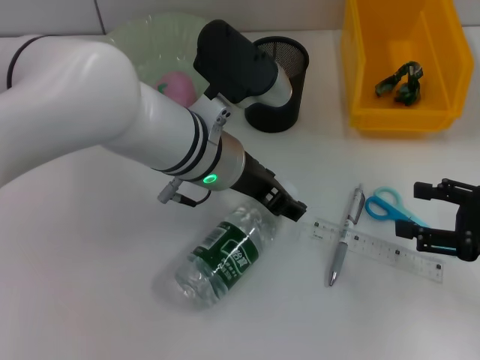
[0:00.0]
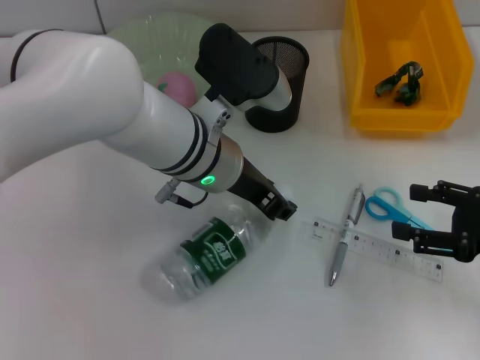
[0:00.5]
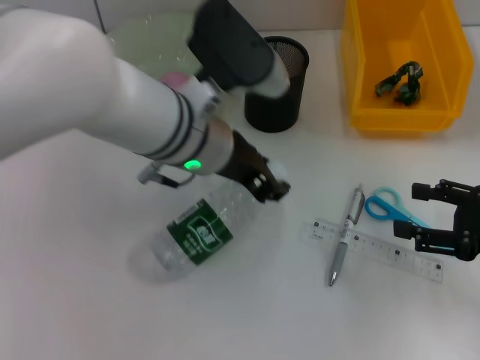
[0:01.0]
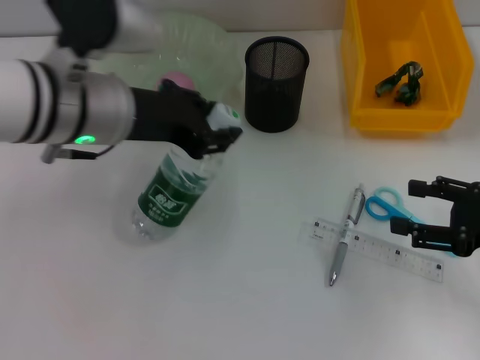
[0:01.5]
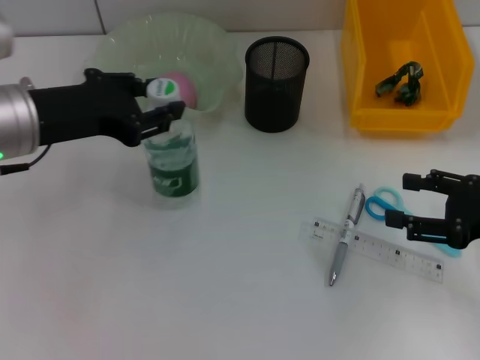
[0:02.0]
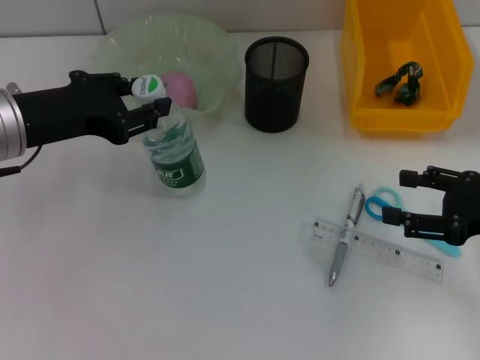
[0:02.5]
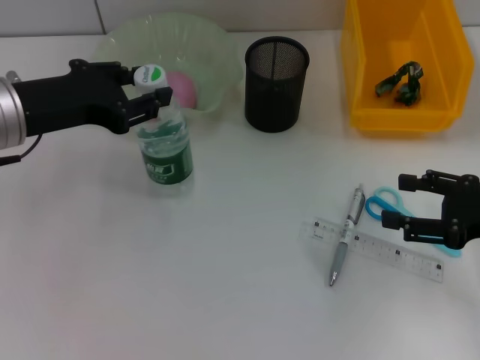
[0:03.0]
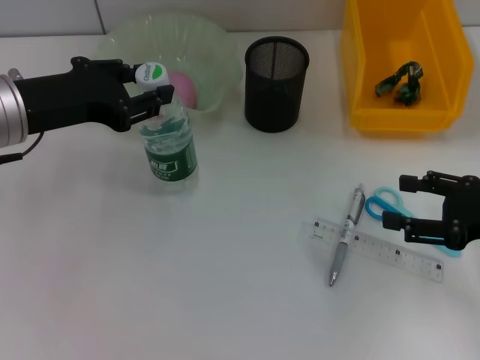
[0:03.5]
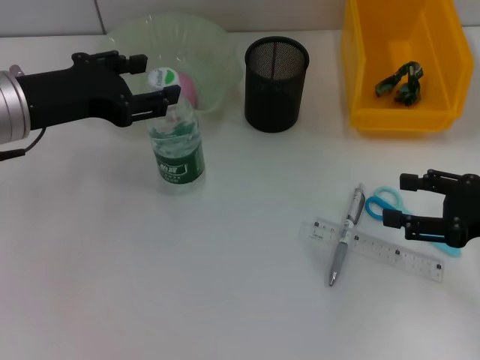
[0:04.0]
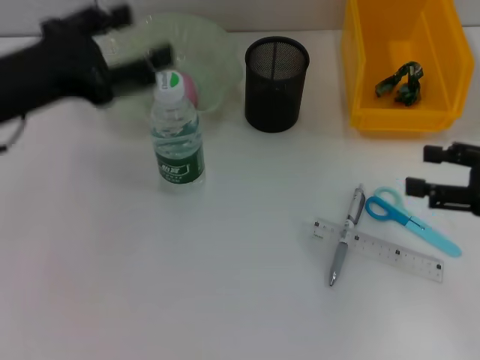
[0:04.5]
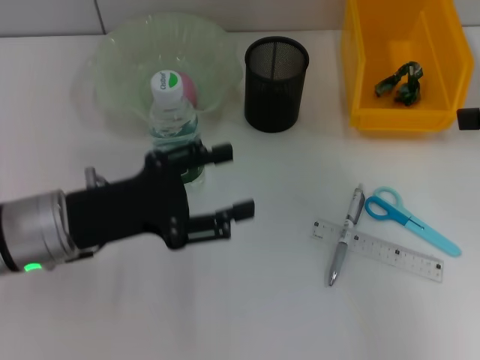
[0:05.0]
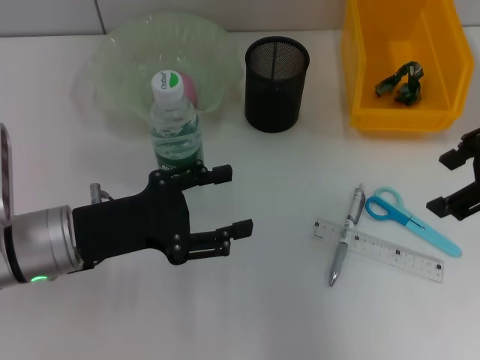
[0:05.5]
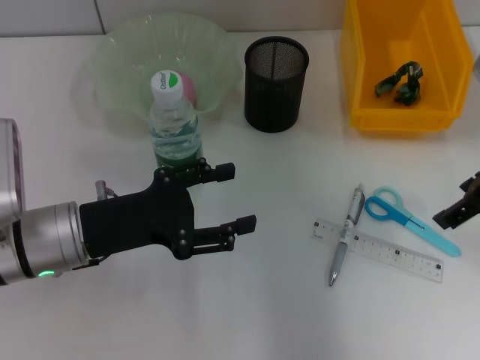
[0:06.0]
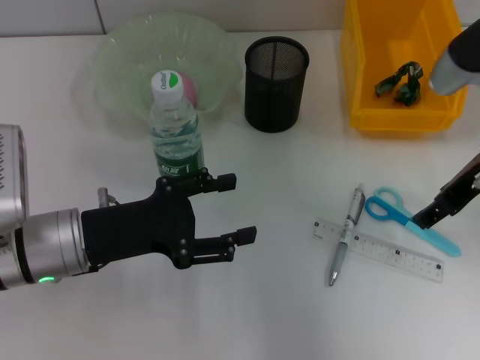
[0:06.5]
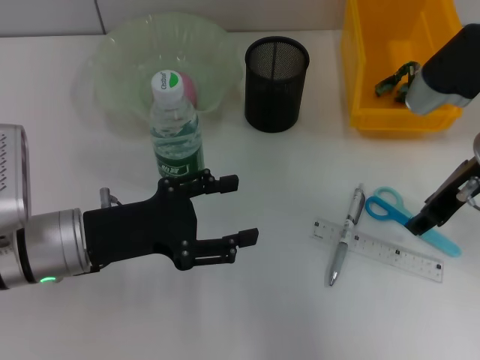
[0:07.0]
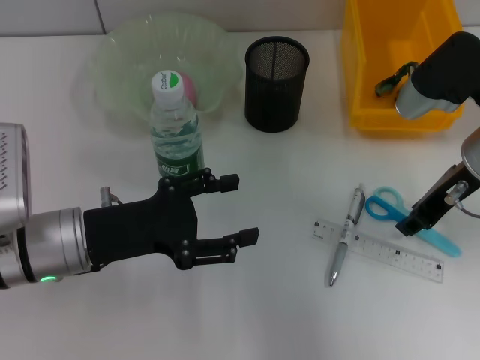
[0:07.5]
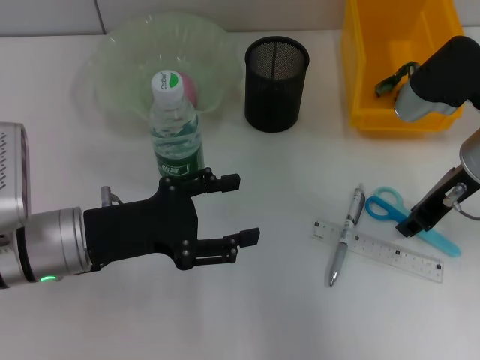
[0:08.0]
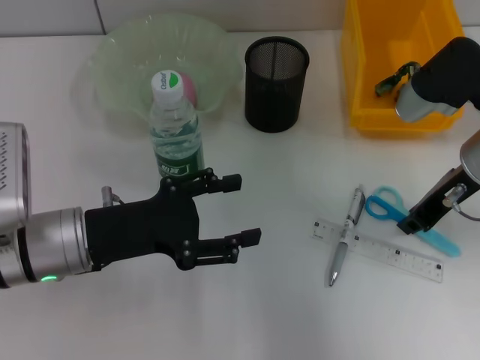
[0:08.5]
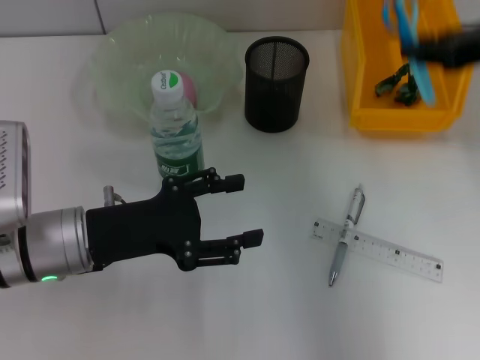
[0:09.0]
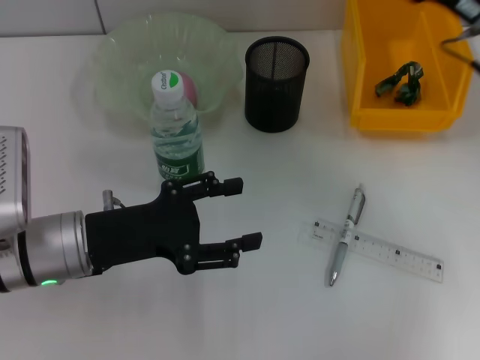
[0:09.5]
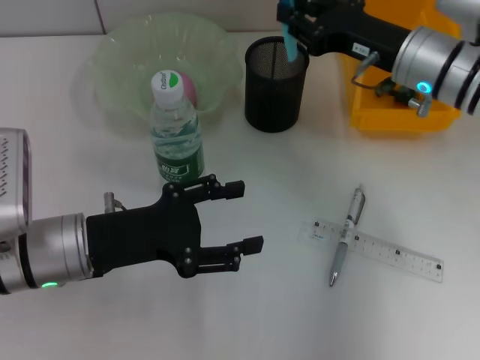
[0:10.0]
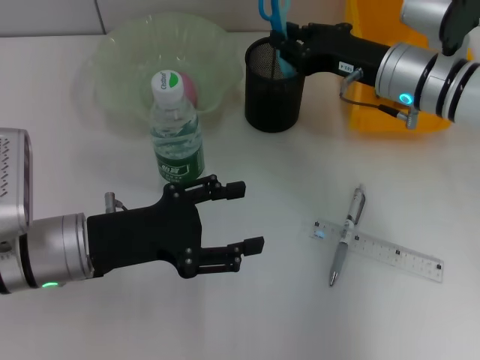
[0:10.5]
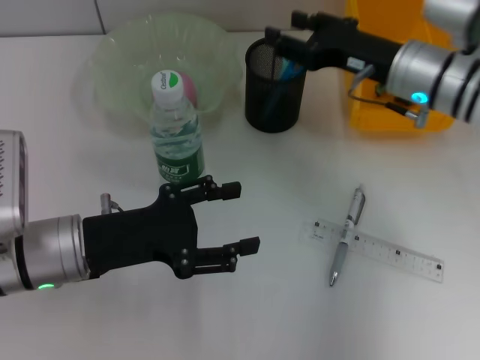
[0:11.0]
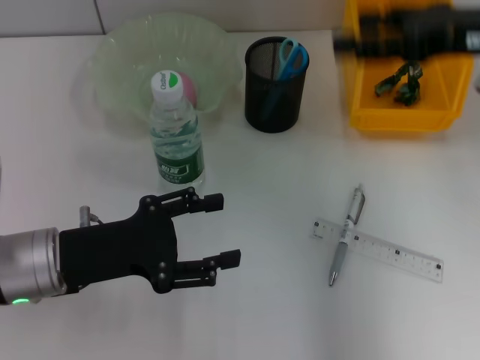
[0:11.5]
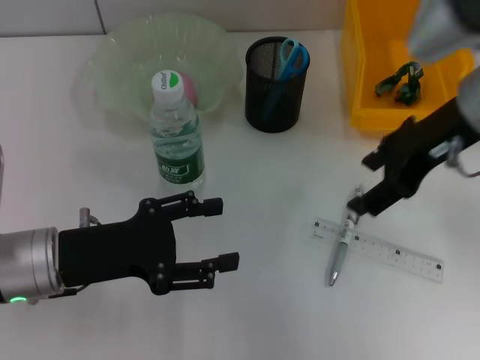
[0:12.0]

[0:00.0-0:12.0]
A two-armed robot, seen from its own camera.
Step, 0:00.5 to 0:04.0: Place the water bottle on the table with the left hand.
Step, 0:04.5 to 0:08.0: Grab the blue scissors with the right hand.
Step, 0:08.5 to 0:10.5: Place the blue scissors into the pen holder with the right hand.
0:00.0 to 0:02.0: The left gripper shifts some 15 cm to the left.
0:02.0 to 0:04.0: There are only small adjustments of the grippers.
0:04.0 to 0:06.0: The right gripper goes about 15 cm upward, forward and to the left. The left gripper is displaced downward and backward by some 10 cm, and opens up.
0:06.0 to 0:08.0: The right gripper travels downward by approximately 5 cm, and closes up.
0:08.0 to 0:10.0: The right gripper moves forward, some 5 cm, and reaches some 10 cm upward, then returns.
0:10.0 to 0:12.0: The right gripper is displaced upward and backward by roughly 10 cm, and opens.

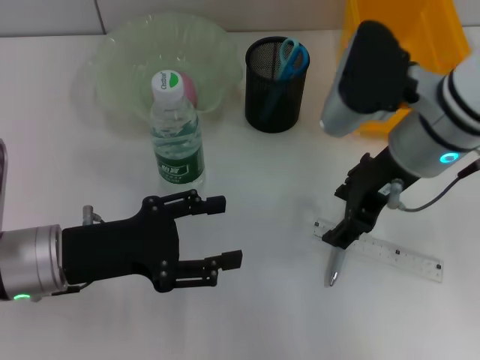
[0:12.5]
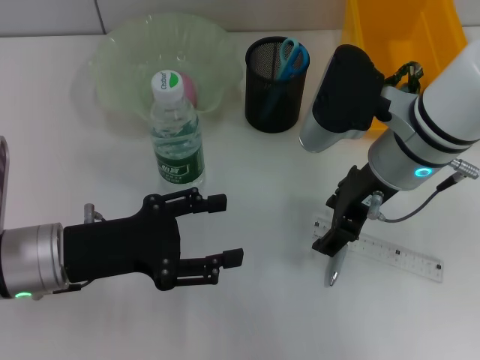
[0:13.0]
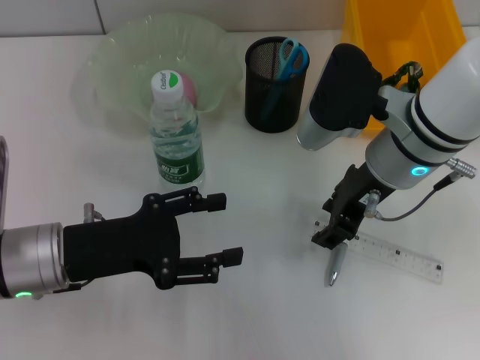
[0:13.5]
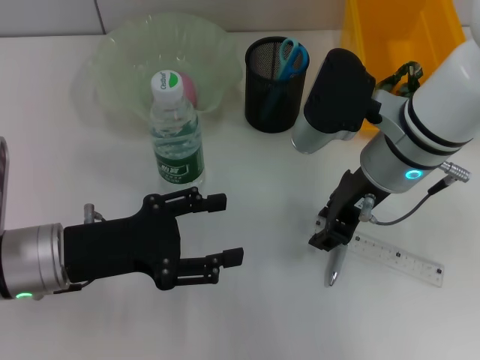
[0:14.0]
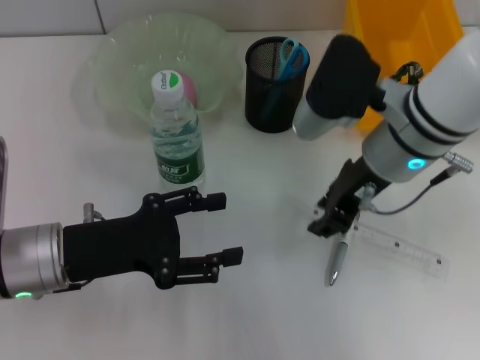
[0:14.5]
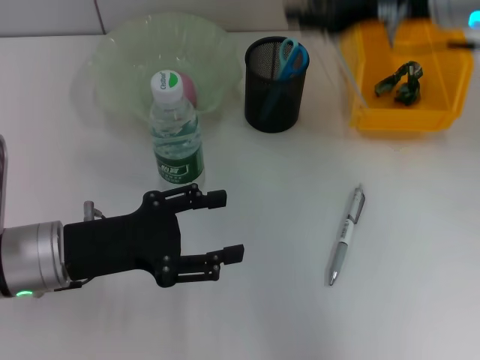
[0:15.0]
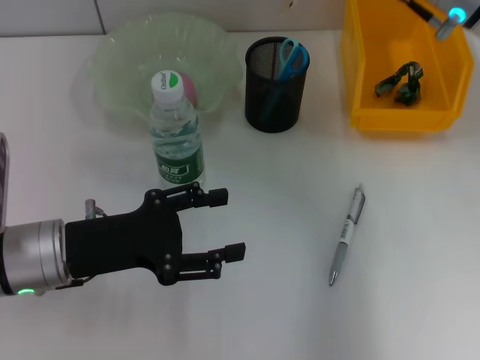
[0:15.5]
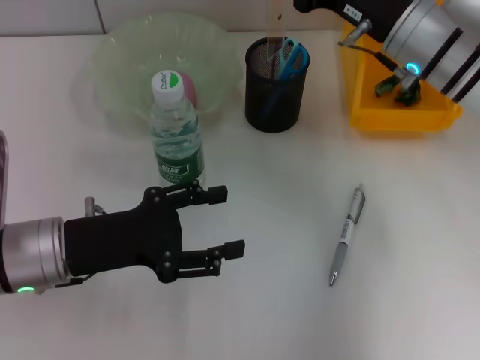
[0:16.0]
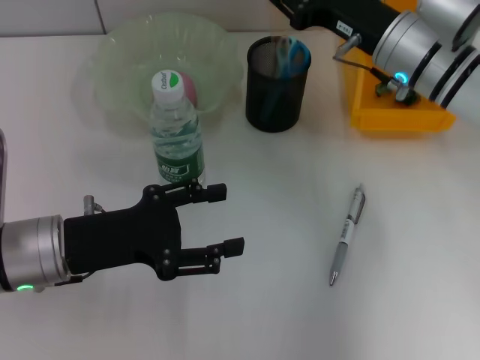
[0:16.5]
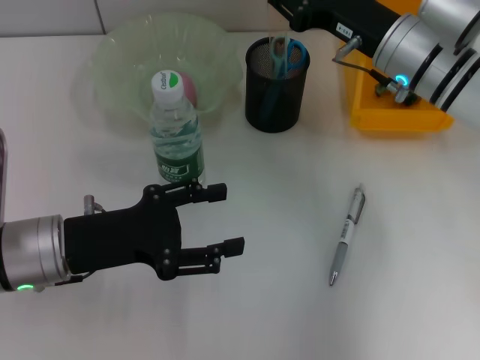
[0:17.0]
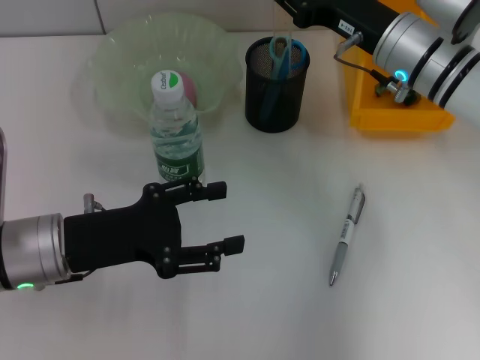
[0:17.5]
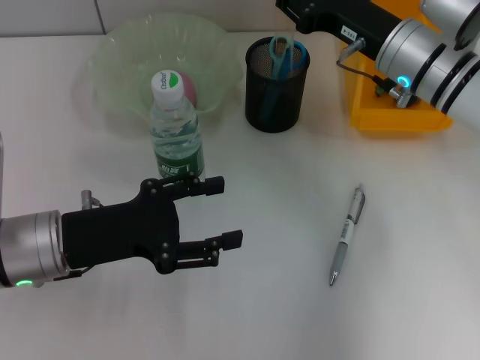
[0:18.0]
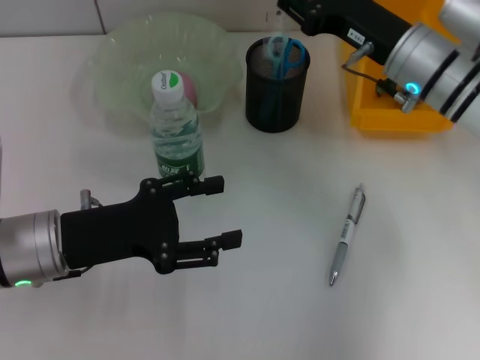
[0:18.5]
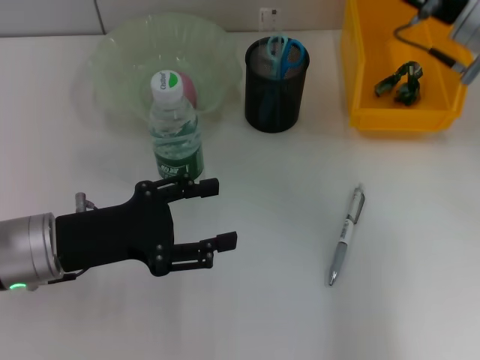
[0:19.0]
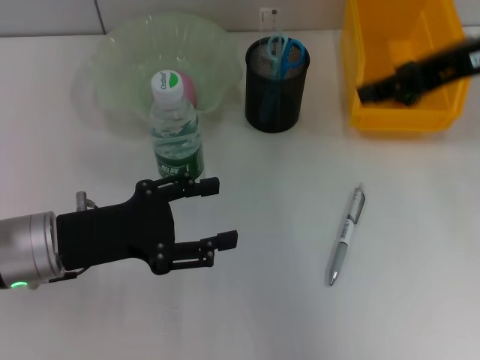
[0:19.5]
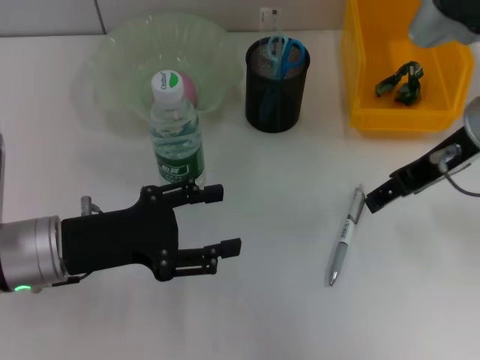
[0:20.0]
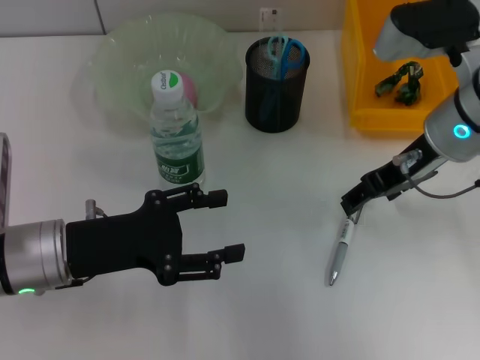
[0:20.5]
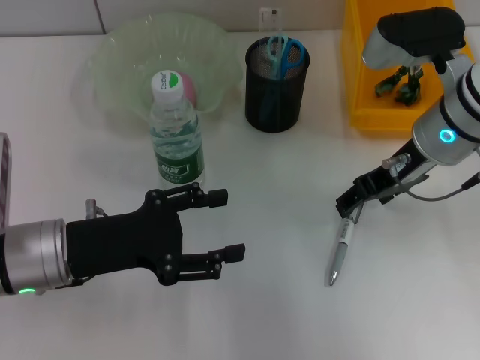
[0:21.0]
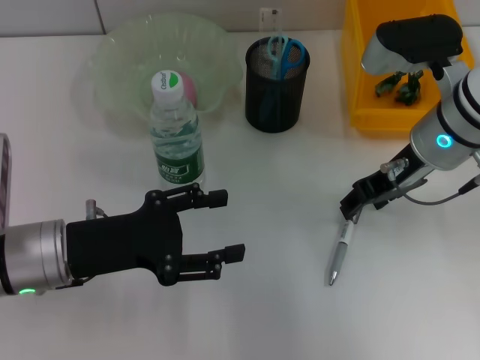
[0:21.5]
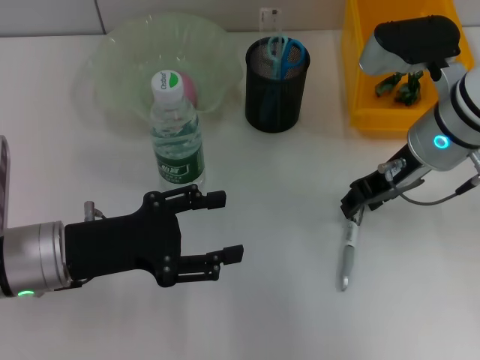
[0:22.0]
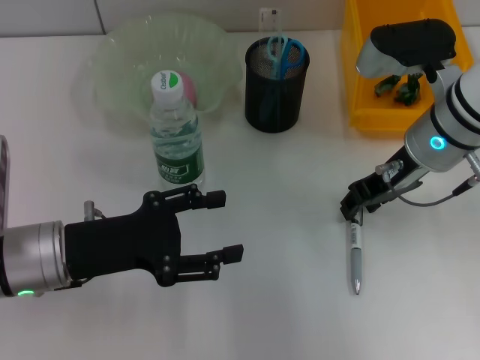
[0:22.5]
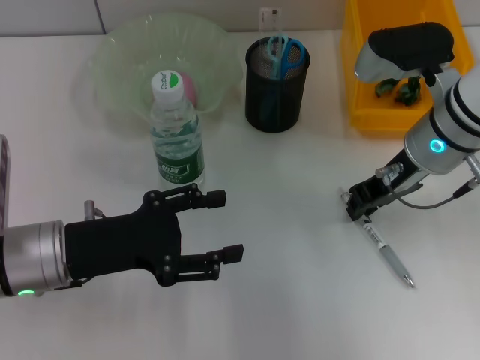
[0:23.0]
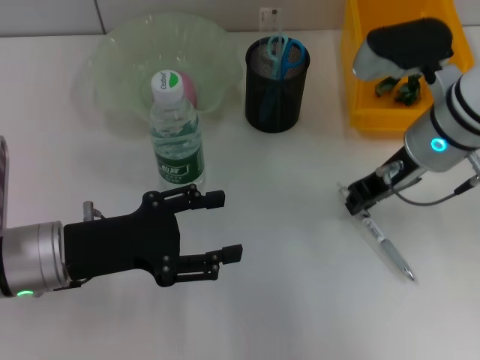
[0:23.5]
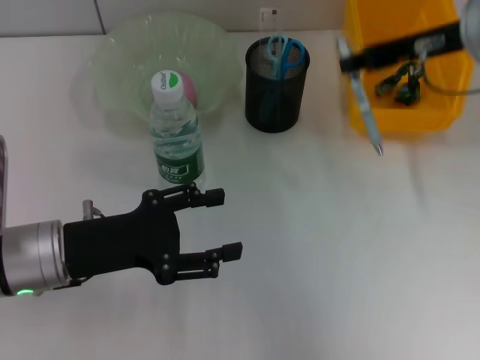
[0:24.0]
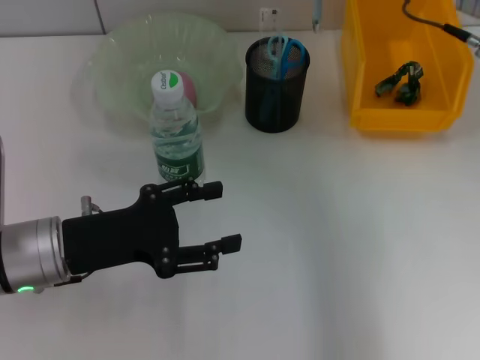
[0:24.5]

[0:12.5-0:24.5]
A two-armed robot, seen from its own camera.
Step, 0:12.5 to 0:14.0: Grab the ruler with the right hand.
Step, 0:14.5 to 0:18.5: Place the ruler into the pen holder with the right hand.
Step, 0:19.0 to 0:23.0: Grab the gray spring-action pen with the right hand.
0:12.5 to 0:14.5: The right gripper closes.
0:14.5 to 0:16.5: The right gripper heads forward, covering roughly 5 cm, and goes upward and returns, about 10 cm each way.
0:16.5 to 0:18.5: The grippers make only small movements.
0:18.5 to 0:20.5: The right gripper travels upward and back again, about 15 cm each way, and opens up.
0:20.5 to 0:22.5: The right gripper closes its fingers.
0:22.5 to 0:24.5: The right gripper travels upward by about 10 cm, and closes.

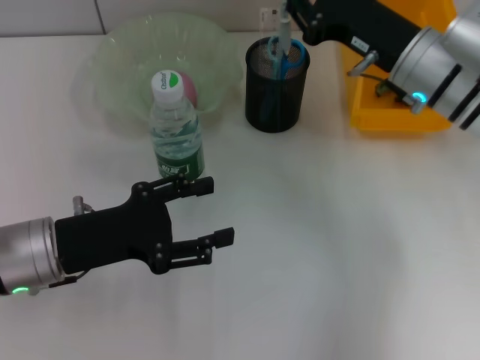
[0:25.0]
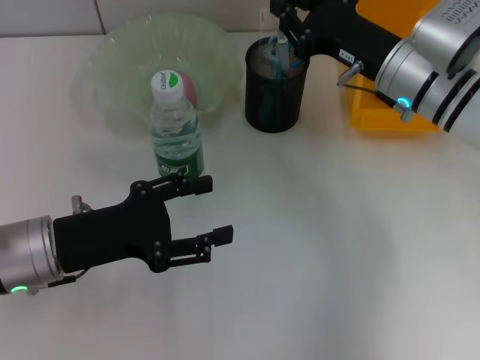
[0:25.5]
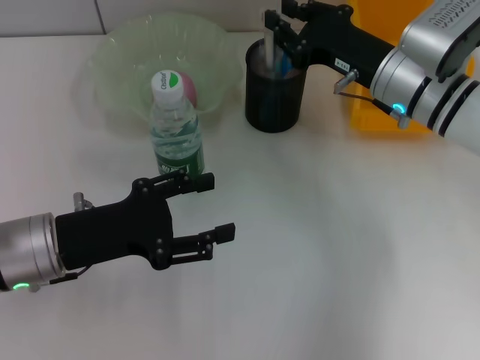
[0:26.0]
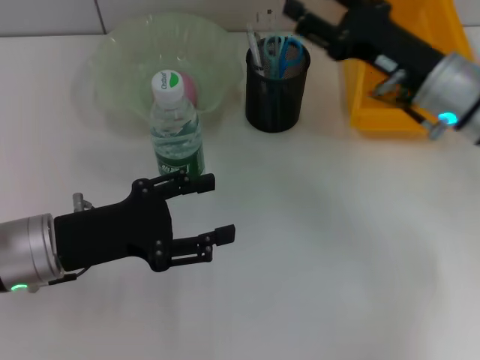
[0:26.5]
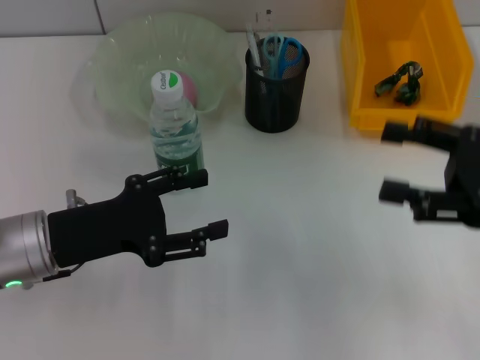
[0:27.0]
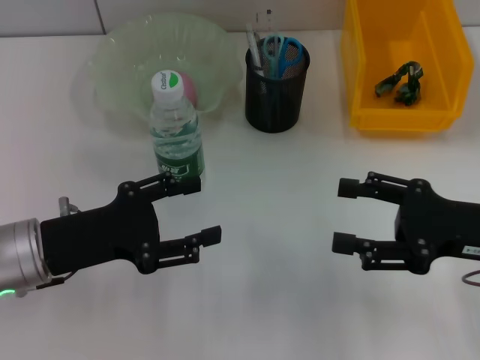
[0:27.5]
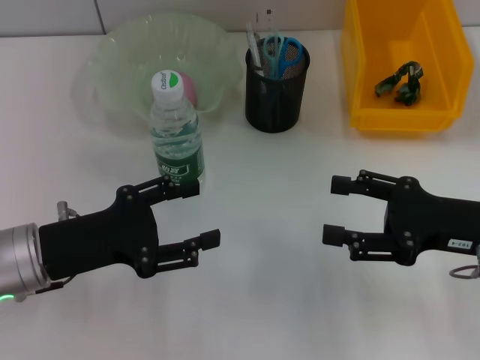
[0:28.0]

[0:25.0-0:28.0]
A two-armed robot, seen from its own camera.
0:25.0 to 0:26.5: The right gripper opens up.
0:26.5 to 0:28.0: The right gripper goes approximately 10 cm backward, and opens its fingers.
